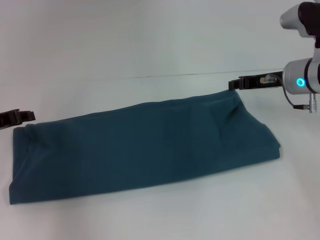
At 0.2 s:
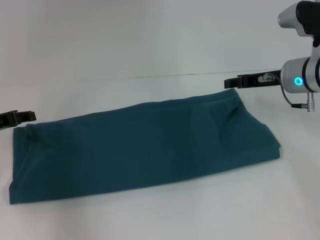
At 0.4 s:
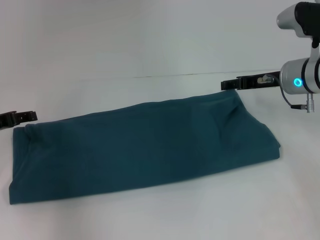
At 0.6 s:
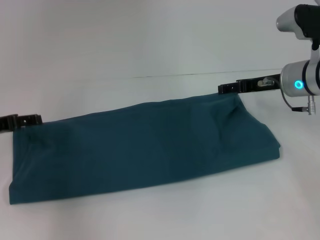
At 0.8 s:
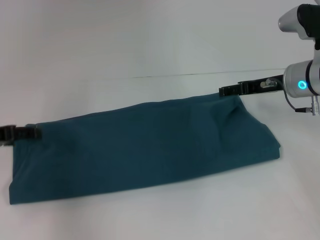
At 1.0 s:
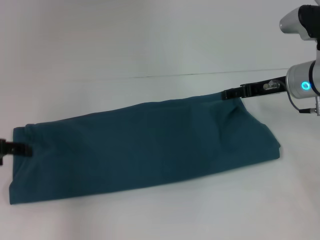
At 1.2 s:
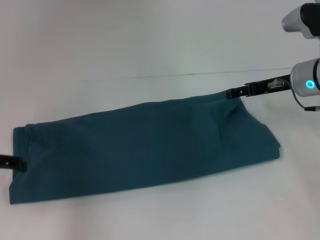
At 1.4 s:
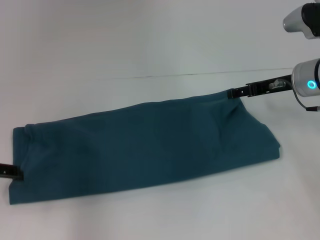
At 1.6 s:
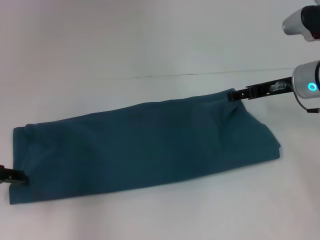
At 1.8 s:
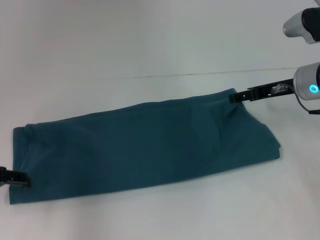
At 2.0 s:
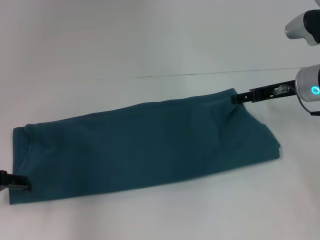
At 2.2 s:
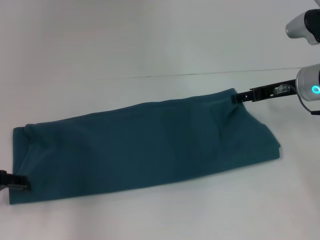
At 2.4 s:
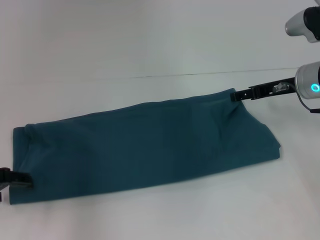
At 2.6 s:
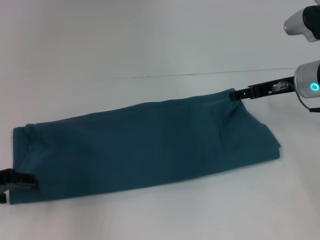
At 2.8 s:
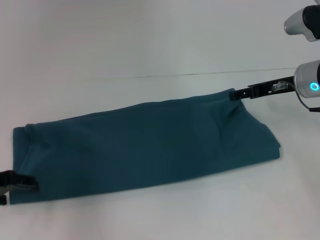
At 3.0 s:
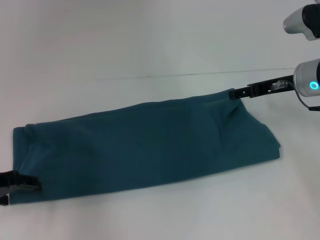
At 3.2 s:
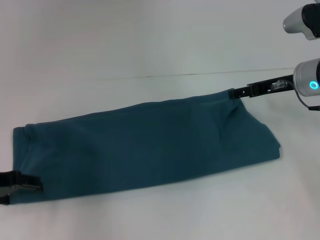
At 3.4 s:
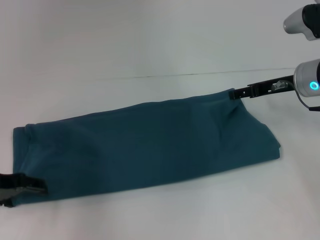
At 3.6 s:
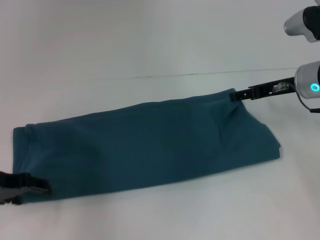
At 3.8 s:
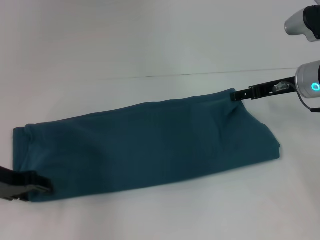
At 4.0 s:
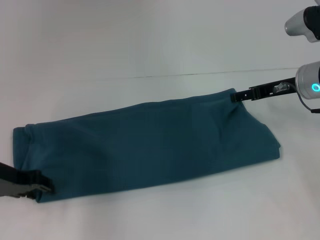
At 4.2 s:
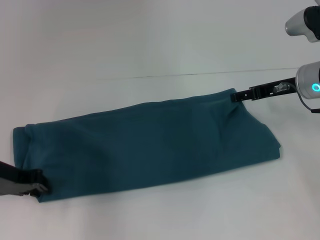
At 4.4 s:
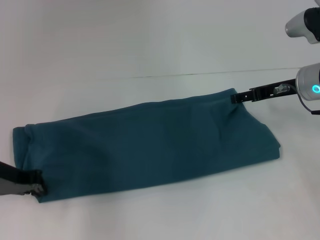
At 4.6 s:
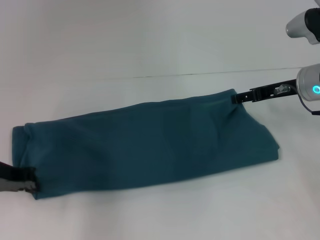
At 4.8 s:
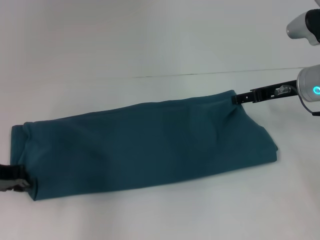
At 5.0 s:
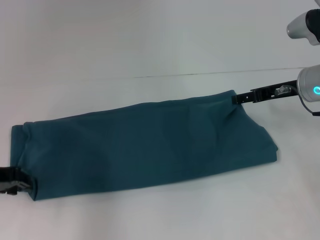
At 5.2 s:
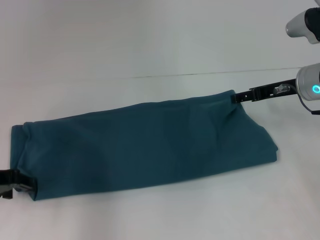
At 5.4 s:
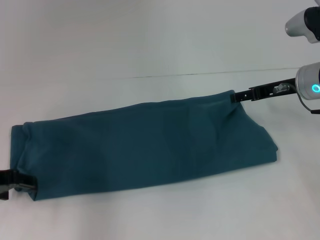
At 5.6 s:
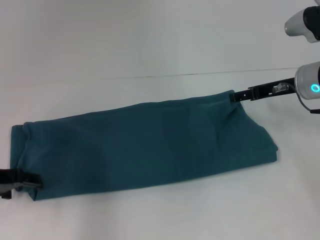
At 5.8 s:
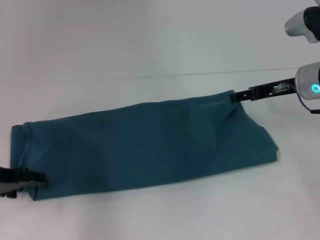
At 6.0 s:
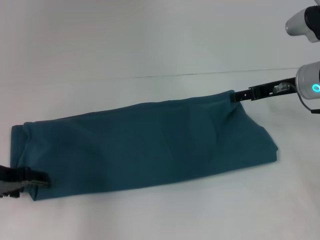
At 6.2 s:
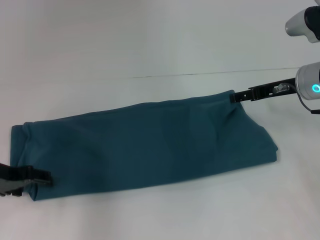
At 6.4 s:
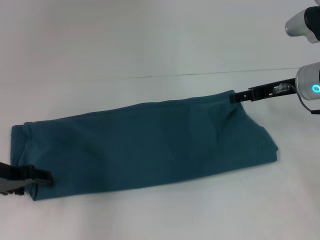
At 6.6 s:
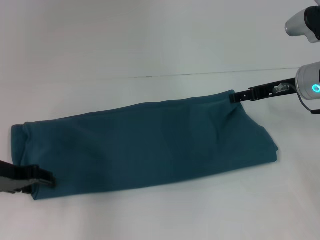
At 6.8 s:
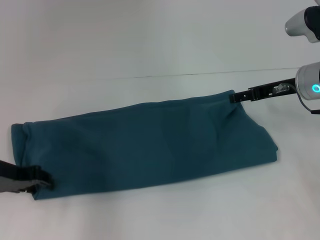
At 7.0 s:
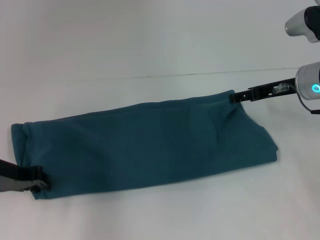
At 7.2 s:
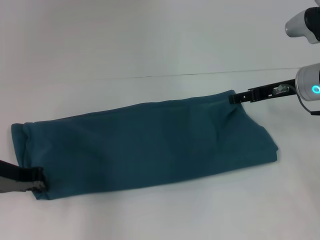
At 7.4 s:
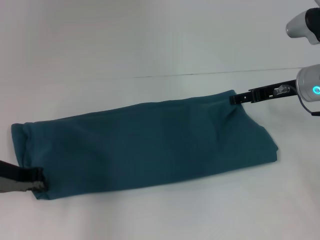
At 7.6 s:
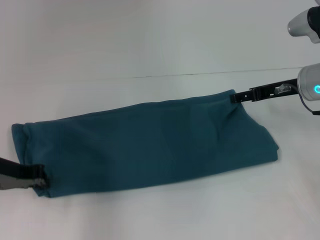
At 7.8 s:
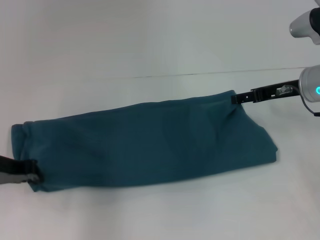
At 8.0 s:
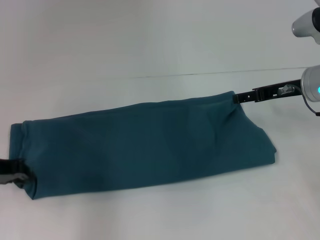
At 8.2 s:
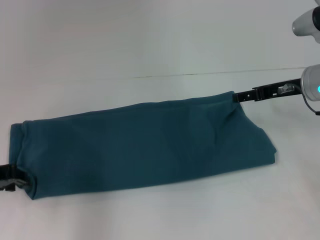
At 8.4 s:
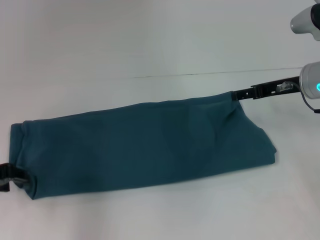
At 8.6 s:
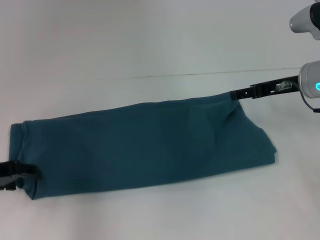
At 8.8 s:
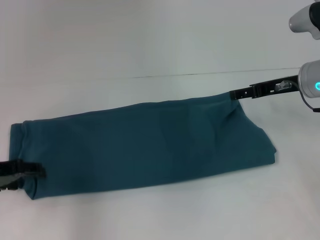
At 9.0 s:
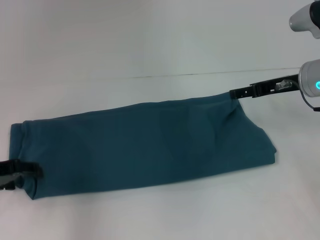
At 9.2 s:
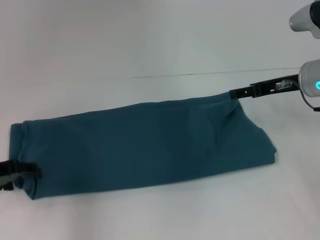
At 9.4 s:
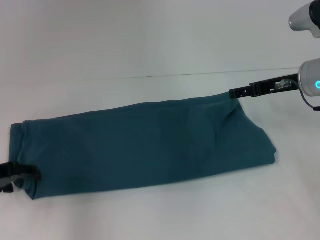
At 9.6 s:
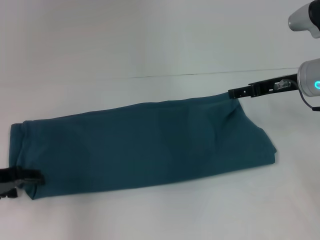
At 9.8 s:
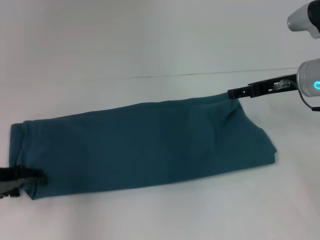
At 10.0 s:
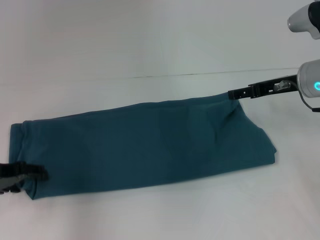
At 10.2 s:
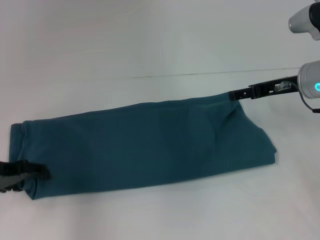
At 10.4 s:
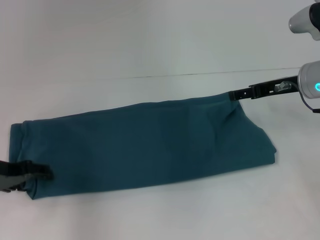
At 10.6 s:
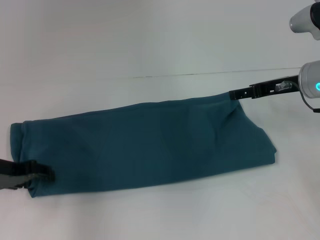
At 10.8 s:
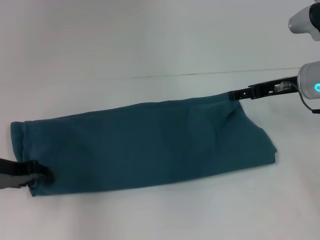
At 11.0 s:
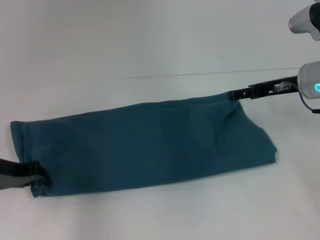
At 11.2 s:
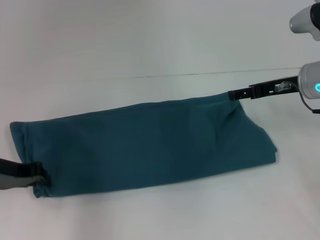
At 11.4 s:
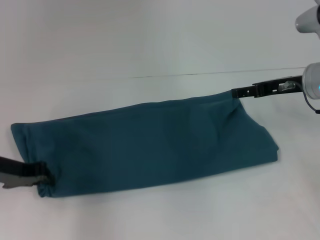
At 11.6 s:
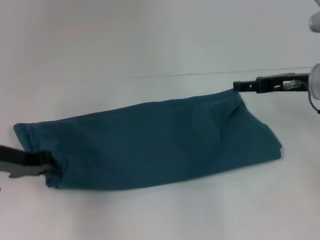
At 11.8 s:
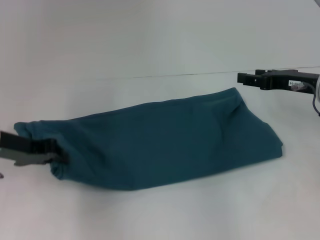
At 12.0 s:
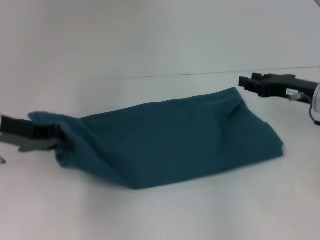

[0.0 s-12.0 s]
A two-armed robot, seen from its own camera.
0.0 to 1.6 s: The left gripper heads backward, covering roughly 5 cm, and opens its fingers. The right gripper opens.
1.6 to 3.0 s: The grippers stay close to where they were, moving slightly.
3.0 to 4.4 s: The left gripper closes.
4.4 to 6.0 s: The left gripper opens its fingers.
6.0 to 7.6 s: The left gripper closes.
7.6 to 9.0 s: The left gripper opens its fingers.
9.0 to 10.4 s: There are only small adjustments of the grippers.
10.4 to 12.0 s: The right gripper shifts by roughly 5 cm, and closes up; the left gripper shifts roughly 5 cm upward, and closes.

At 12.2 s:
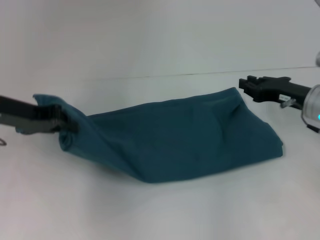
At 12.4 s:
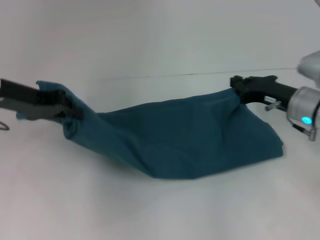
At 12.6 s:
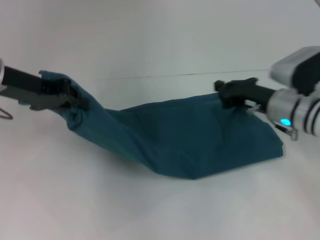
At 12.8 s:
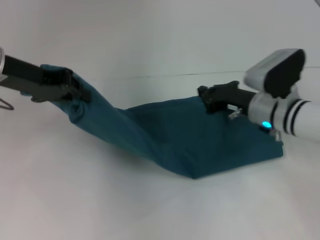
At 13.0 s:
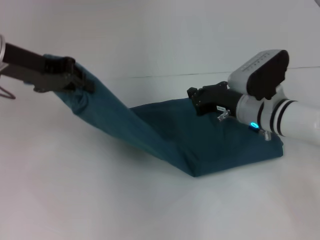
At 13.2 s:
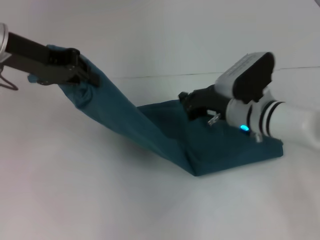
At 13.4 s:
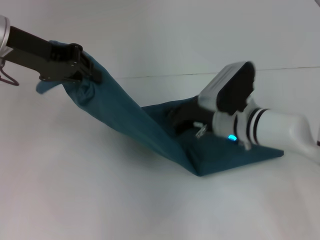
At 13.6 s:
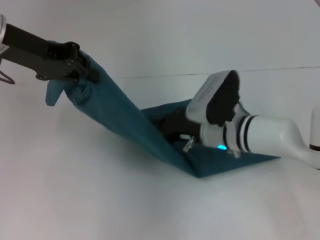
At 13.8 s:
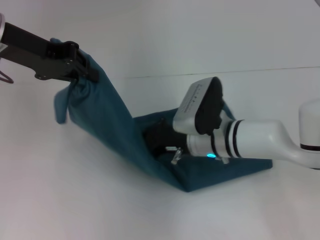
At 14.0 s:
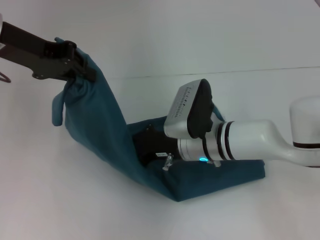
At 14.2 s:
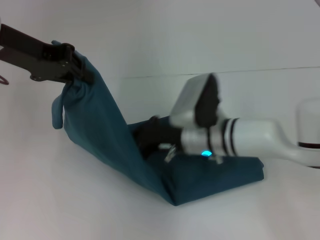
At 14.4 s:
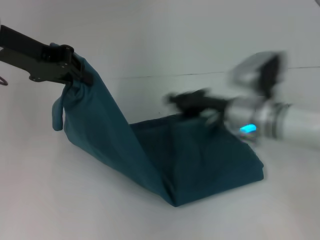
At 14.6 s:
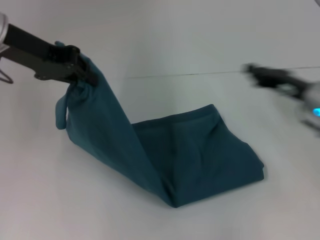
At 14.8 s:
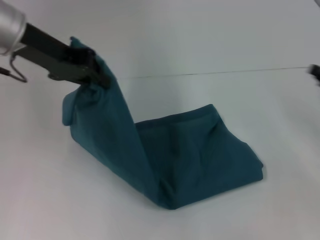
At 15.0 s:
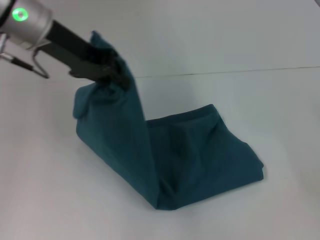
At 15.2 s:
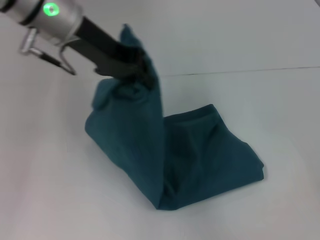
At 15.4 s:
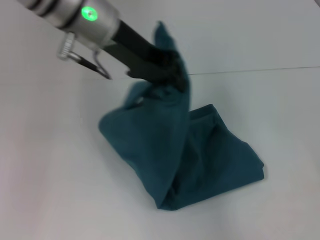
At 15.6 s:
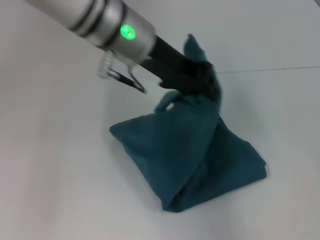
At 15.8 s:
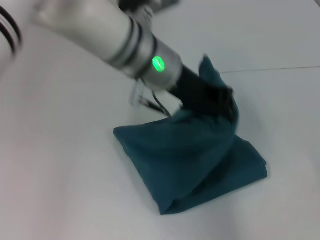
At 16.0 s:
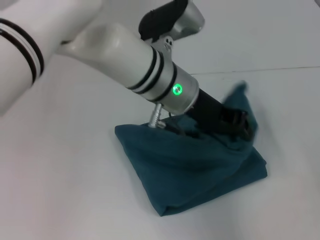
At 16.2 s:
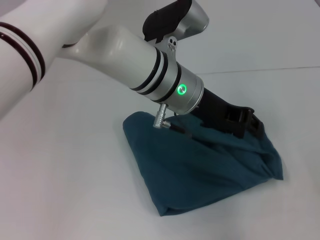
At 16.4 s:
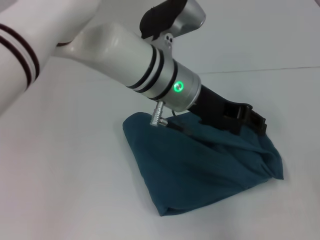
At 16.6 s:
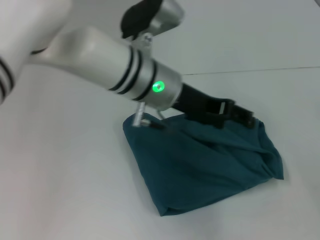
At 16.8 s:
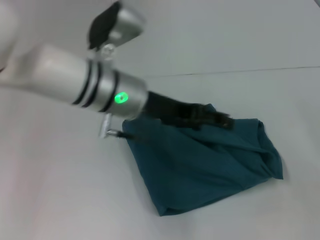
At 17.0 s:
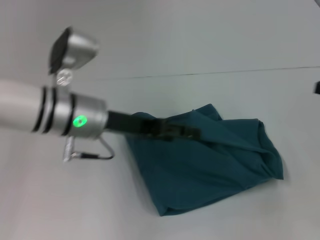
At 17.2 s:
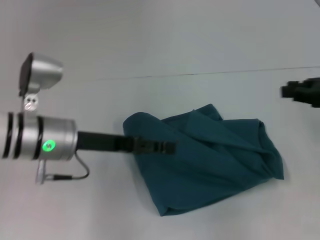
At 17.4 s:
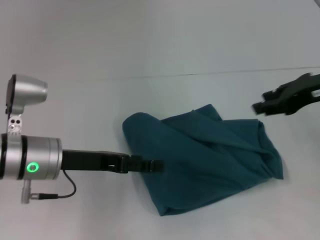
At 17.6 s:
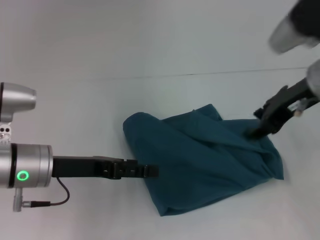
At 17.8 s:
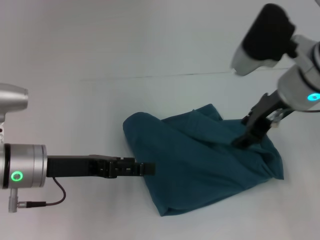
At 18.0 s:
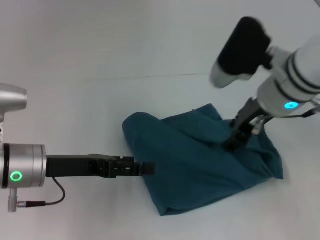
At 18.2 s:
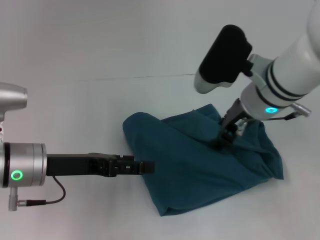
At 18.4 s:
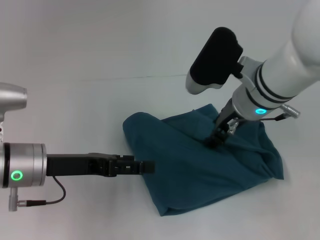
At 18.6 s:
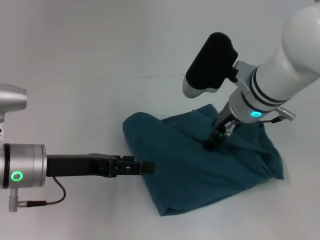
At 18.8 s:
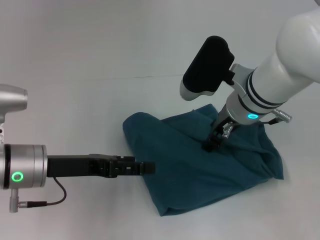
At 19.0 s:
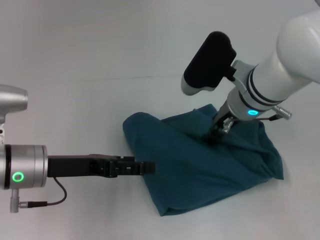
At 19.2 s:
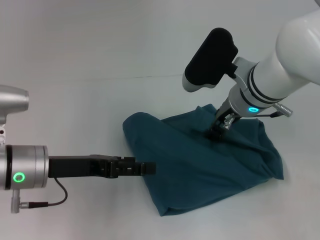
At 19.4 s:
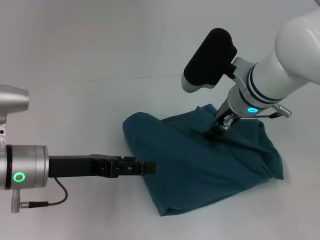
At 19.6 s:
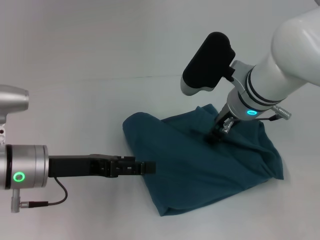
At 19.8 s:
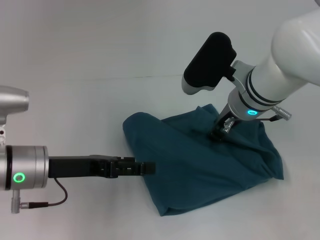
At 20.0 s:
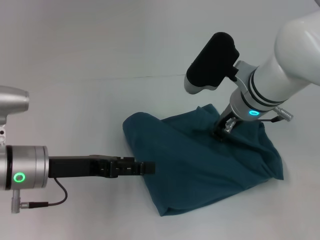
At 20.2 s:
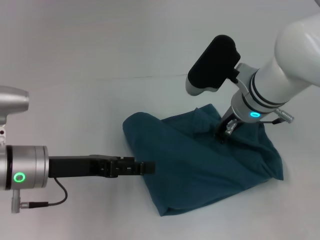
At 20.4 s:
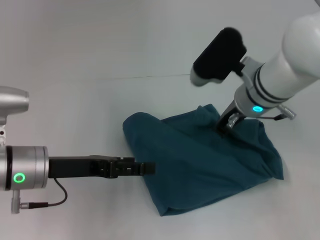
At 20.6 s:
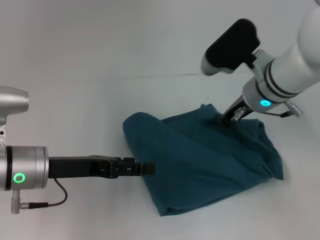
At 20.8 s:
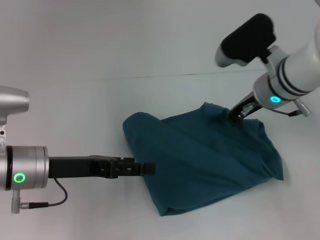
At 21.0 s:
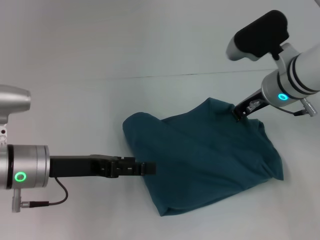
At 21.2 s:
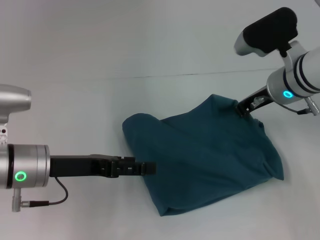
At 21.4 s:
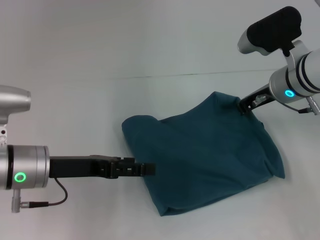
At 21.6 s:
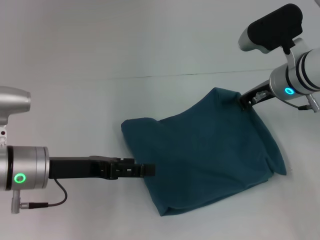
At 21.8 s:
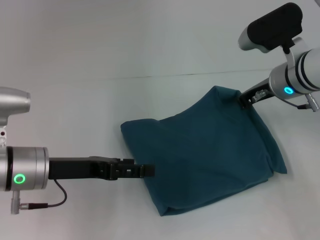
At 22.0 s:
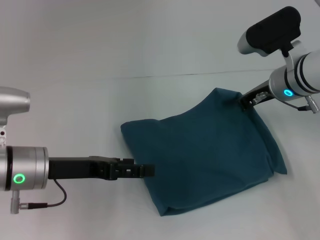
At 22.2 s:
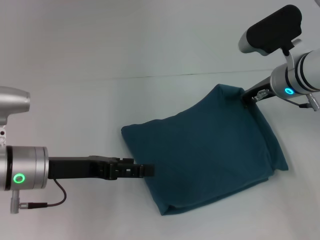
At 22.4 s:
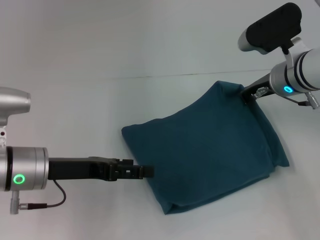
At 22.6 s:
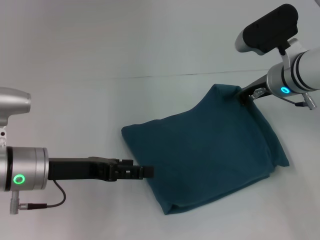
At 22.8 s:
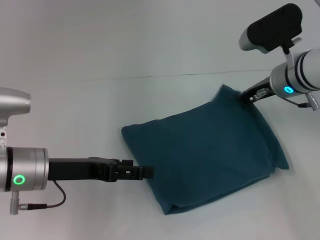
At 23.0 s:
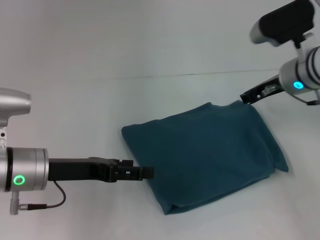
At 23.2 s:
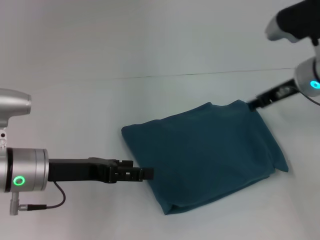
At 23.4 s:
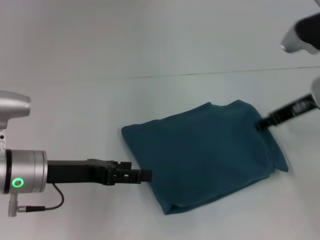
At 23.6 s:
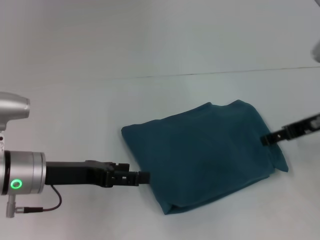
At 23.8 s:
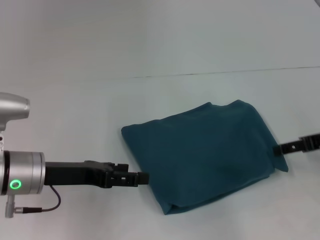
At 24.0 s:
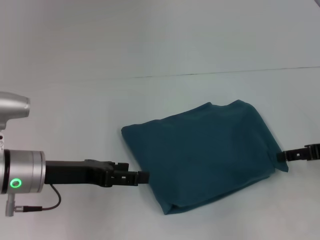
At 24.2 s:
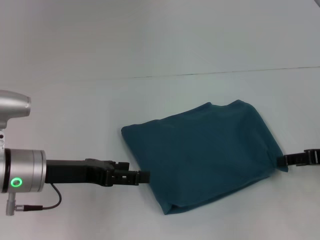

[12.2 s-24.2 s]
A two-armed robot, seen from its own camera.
Step, 12.2 to 14.2 s: Press the middle of the clothes with your right hand.
Step, 14.4 to 16.4 s: Fold the clothes to the left.
12.2 to 13.8 s: The right gripper moves to the left, some 15 cm; the left gripper heads upward, covering about 10 cm.
13.8 to 15.2 s: The left gripper heads to the right, covering about 10 cm. The right gripper moves to the right, approximately 35 cm.
15.2 to 16.6 s: The left gripper moves to the right and downward, about 15 cm, and opens its fingers.
16.6 to 18.2 s: The right gripper heads to the left, covering some 30 cm, and opens. The left gripper travels to the left and downward by approximately 20 cm, and opens its fingers.
18.2 to 19.8 s: The grippers move only a little.
19.8 to 21.2 s: The right gripper moves to the right, approximately 5 cm, and closes its fingers.
21.2 to 22.6 s: There are only small adjustments of the grippers.
22.6 to 24.2 s: The right gripper heads to the right and backward, covering roughly 20 cm, and opens up.